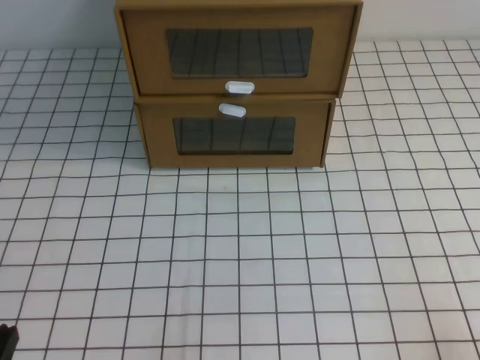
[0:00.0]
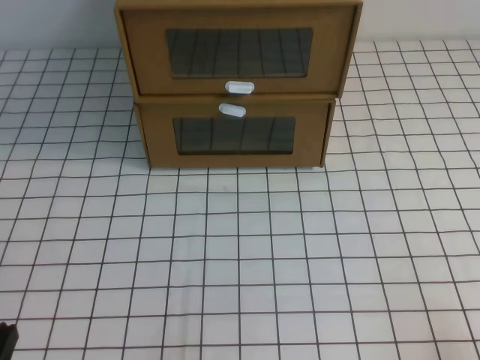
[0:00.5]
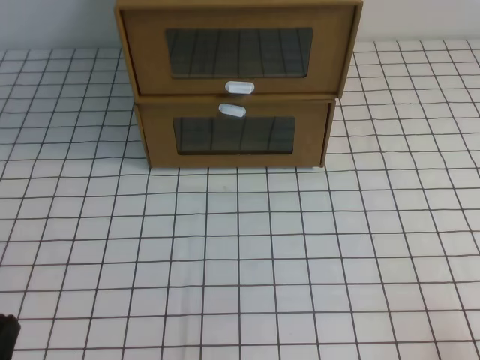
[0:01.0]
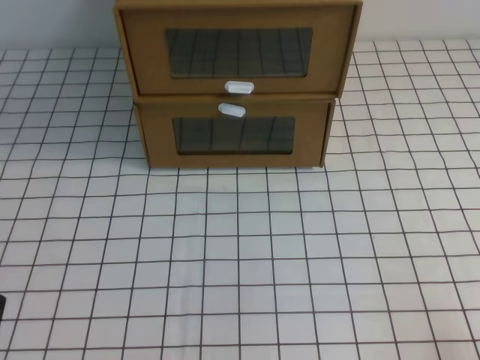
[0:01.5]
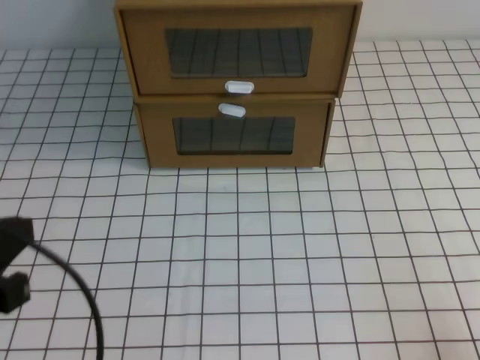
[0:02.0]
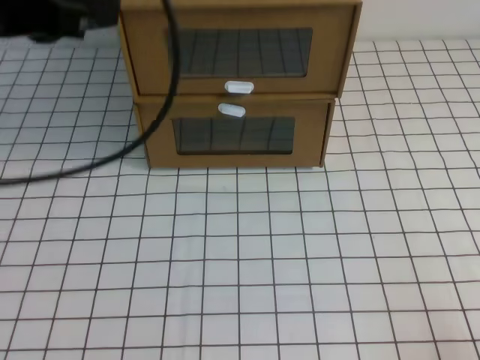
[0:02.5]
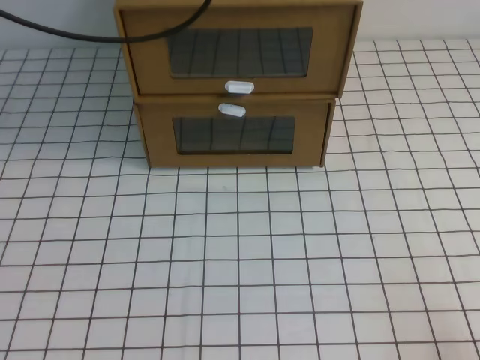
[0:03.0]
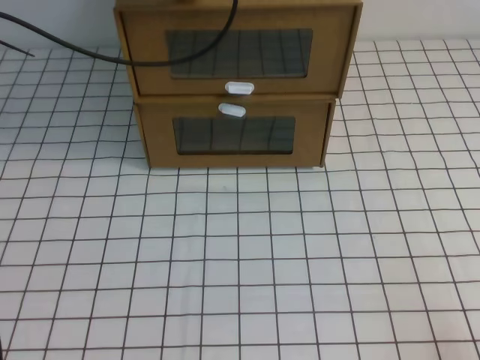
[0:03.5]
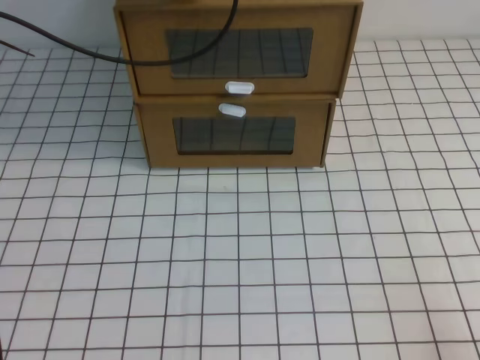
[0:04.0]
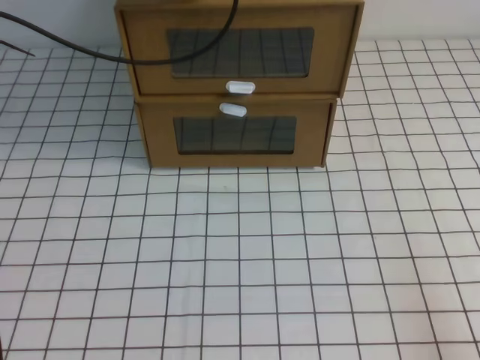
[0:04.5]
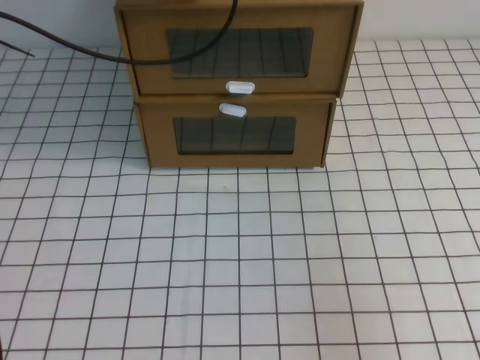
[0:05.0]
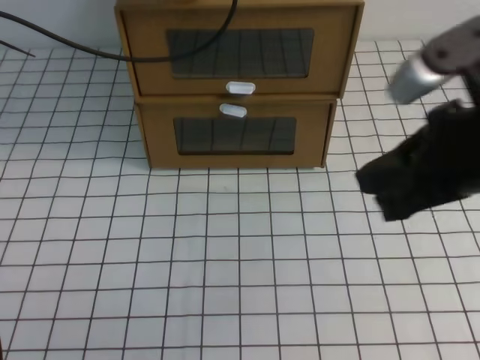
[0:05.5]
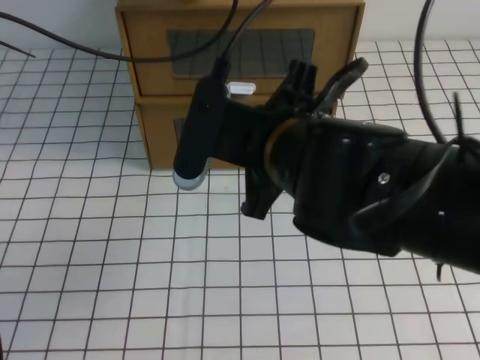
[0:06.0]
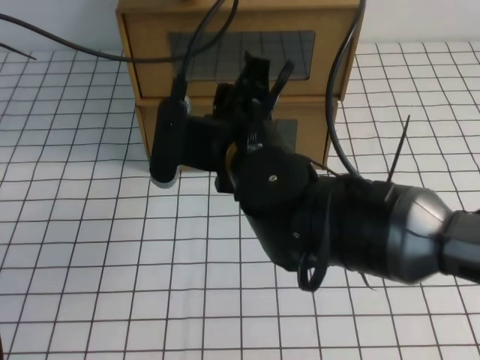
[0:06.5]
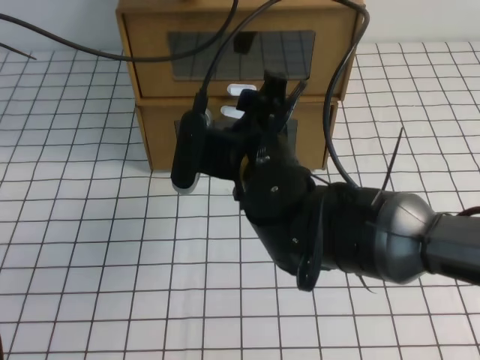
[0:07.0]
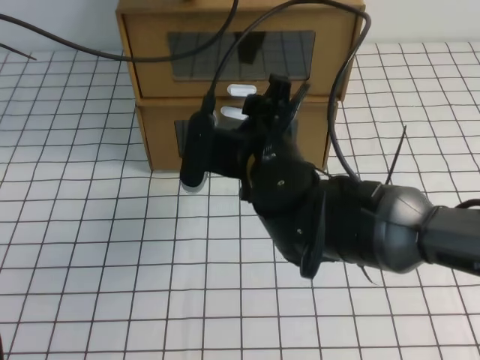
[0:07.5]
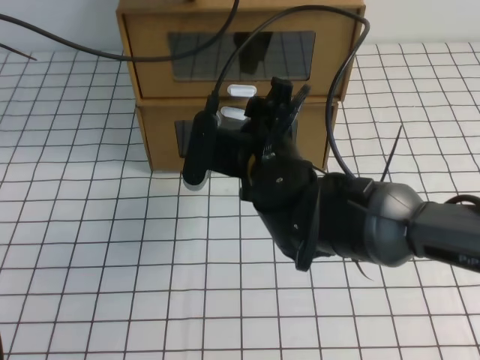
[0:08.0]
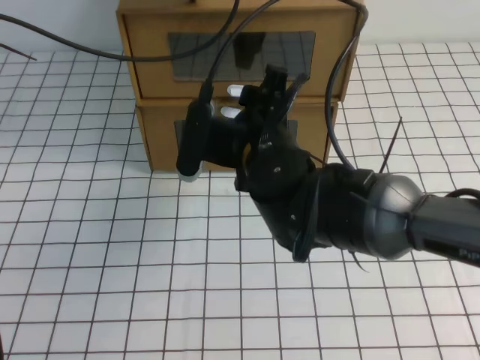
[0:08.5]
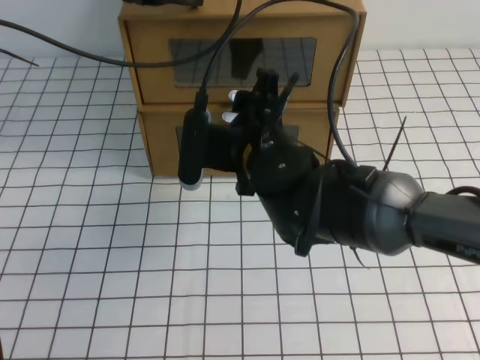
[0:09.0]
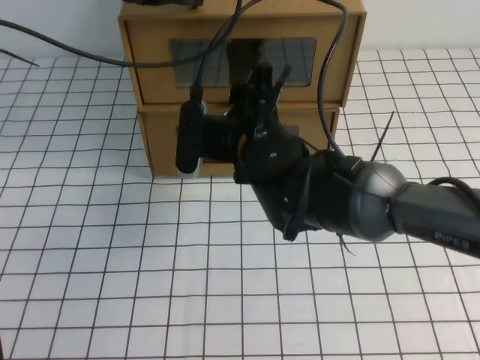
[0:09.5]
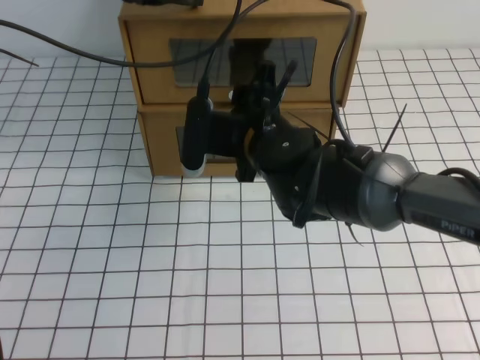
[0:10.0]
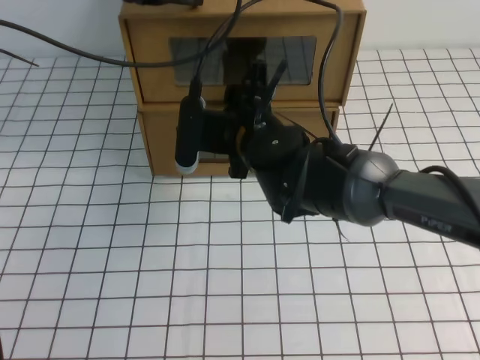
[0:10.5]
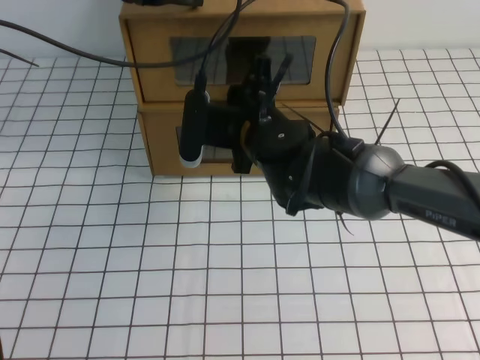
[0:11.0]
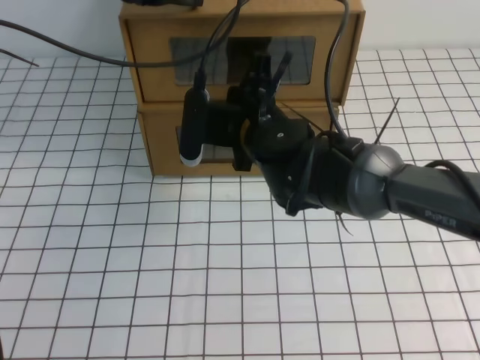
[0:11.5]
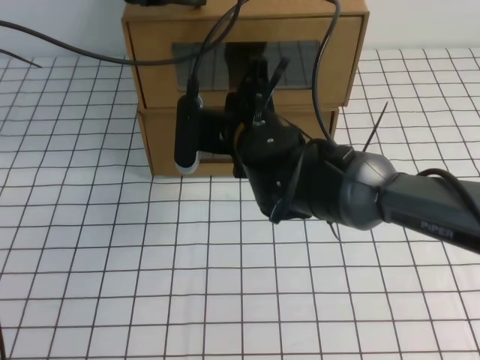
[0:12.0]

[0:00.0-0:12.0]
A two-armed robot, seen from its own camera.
Task of the whole recording: open the shoebox on the white tablecloth.
0:02.0 to 0:04.0: The left gripper travels forward by roughly 35 cm.
0:04.0 to 0:06.0: The right gripper heads to the left, forward and upward, covering some 35 cm.
0:06.0 to 0:08.0: The right gripper heads downward and forward, covering some 10 cm, and opens up.
0:10.0 to 0:12.0: The right gripper closes.

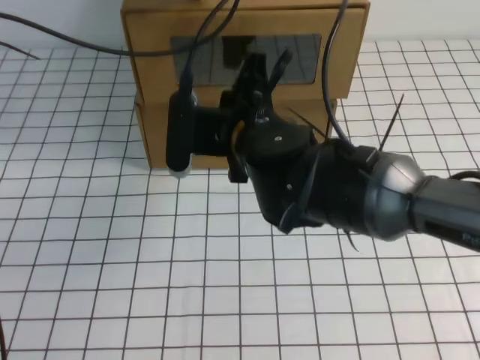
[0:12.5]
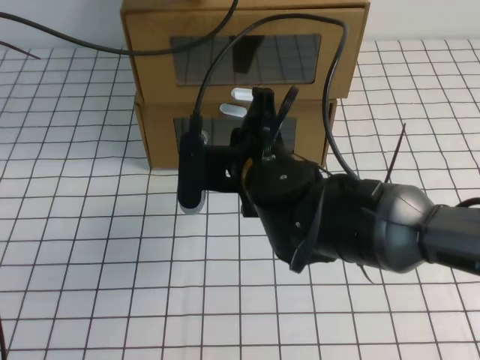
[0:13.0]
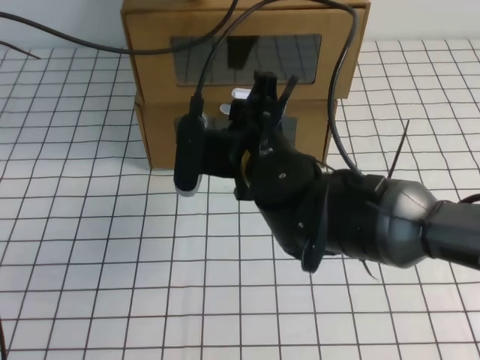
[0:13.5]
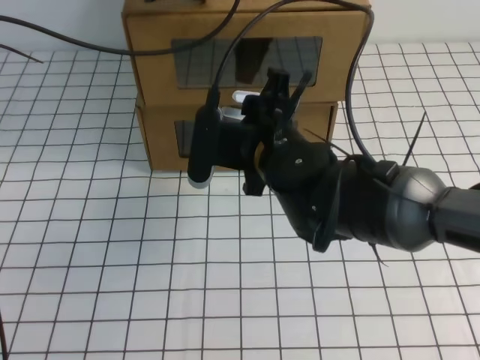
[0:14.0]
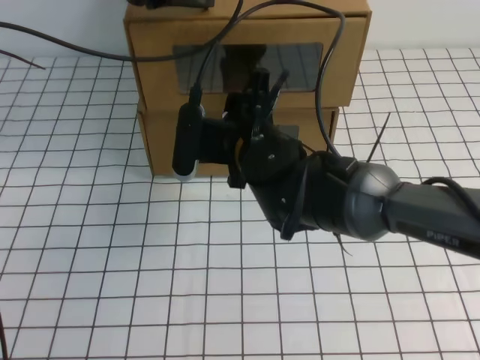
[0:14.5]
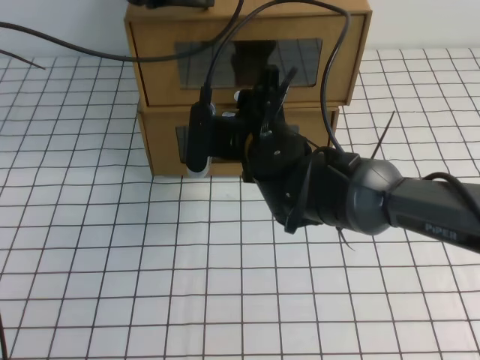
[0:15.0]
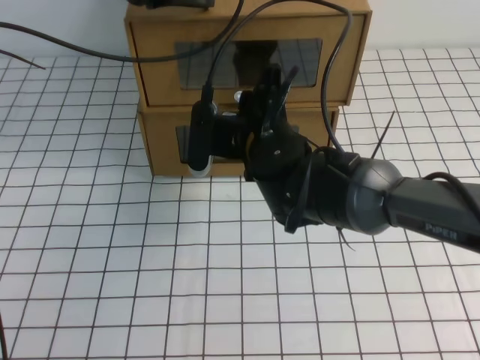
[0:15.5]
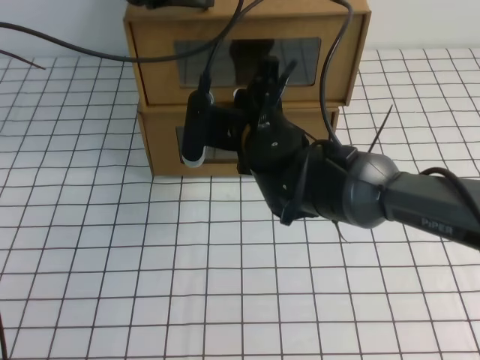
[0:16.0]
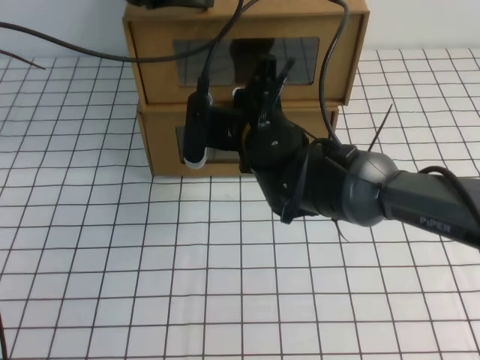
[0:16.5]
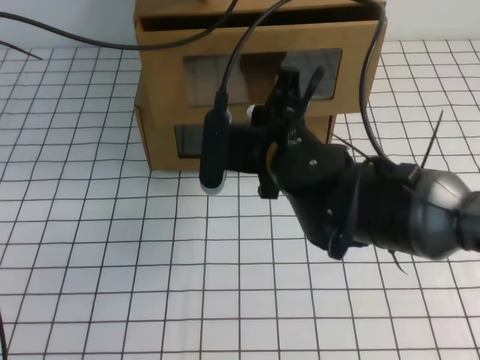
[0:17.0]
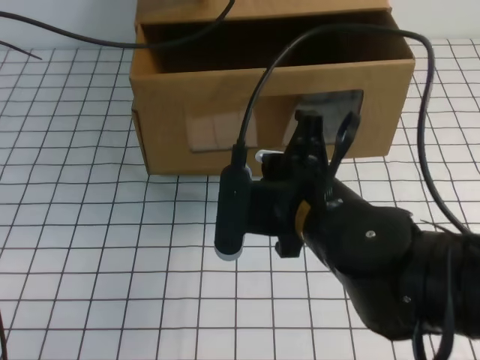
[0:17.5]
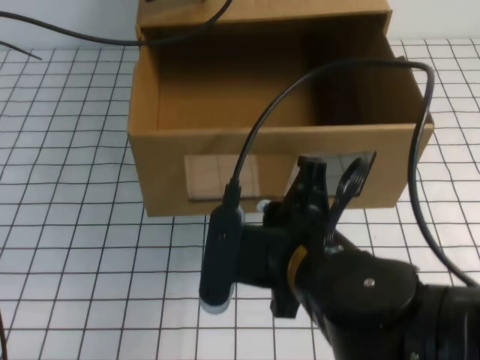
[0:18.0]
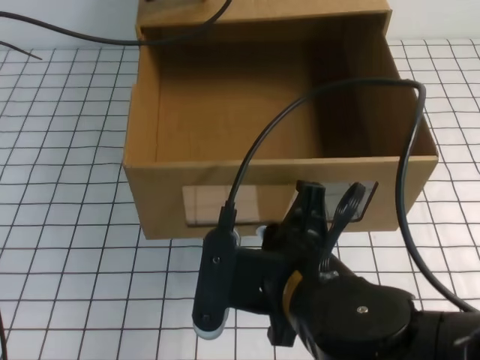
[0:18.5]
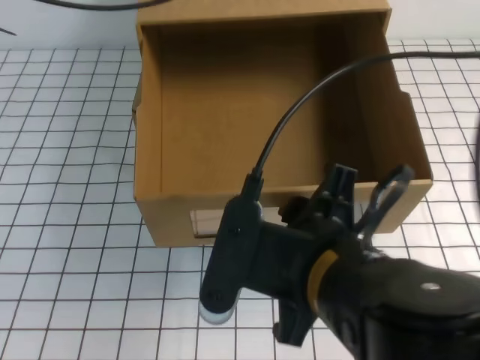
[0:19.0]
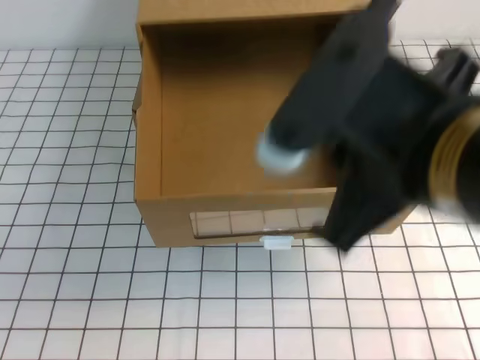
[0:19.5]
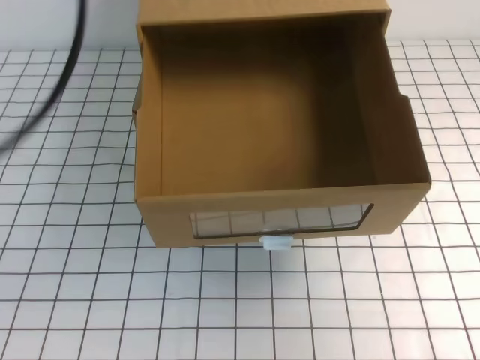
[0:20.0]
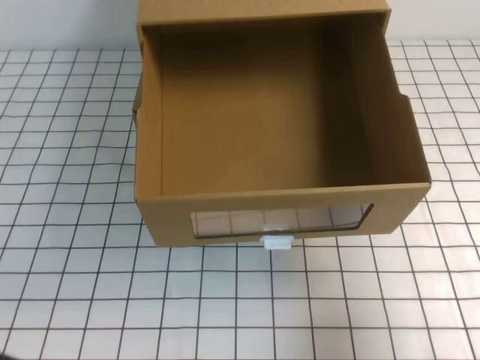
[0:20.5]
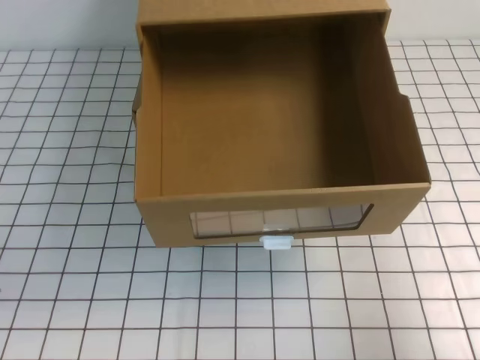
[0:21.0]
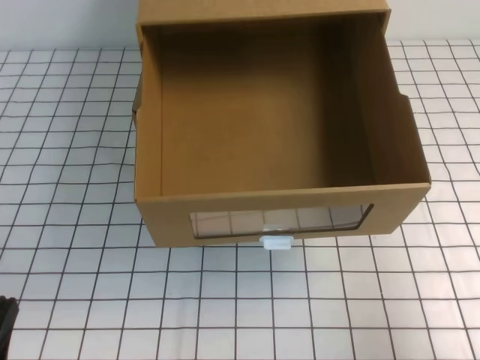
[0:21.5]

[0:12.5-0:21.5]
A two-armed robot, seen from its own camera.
Task of the whole recording: open the shoebox on the white tablecloth.
0:12.5 to 0:14.5: The right gripper opens its fingers.
0:14.5 to 0:17.0: The right gripper closes its fingers.
0:17.0 to 0:19.5: The right gripper heads backward and upward, covering some 25 cm, and opens, then closes again, while the left gripper heads upward and backward, covering about 15 cm.
0:19.5 to 0:21.5: The left gripper goes about 40 cm downward and backward; the right gripper moves to the right and downward, about 25 cm.

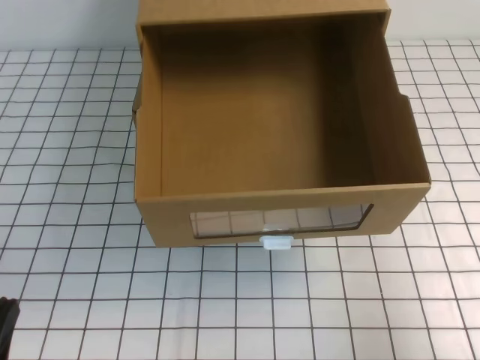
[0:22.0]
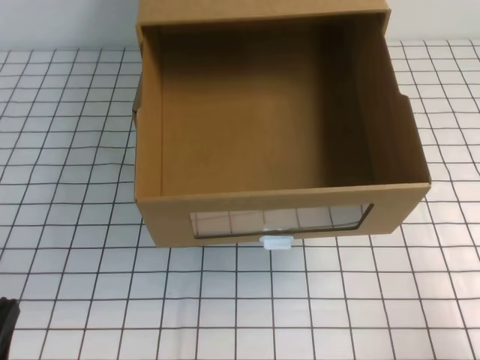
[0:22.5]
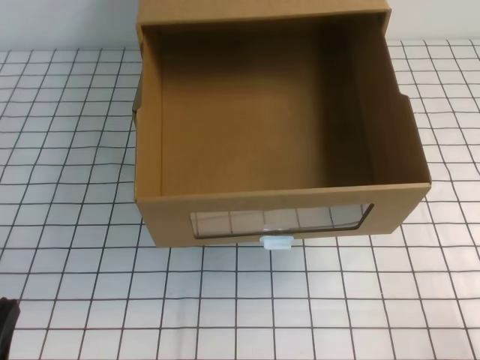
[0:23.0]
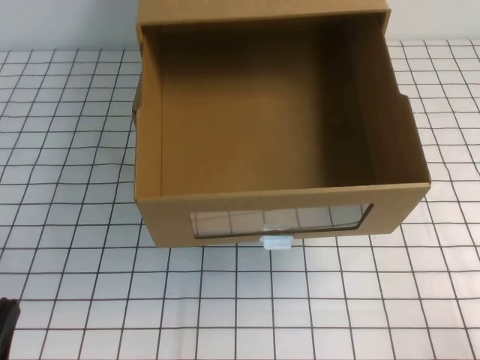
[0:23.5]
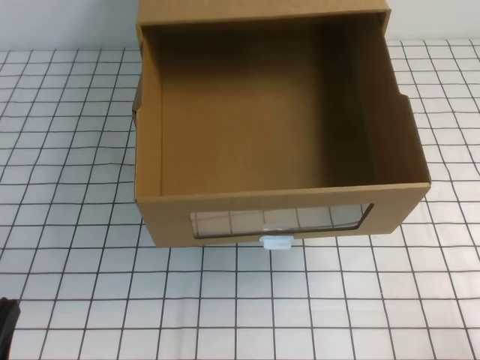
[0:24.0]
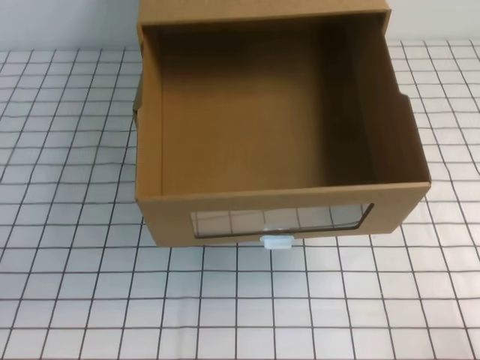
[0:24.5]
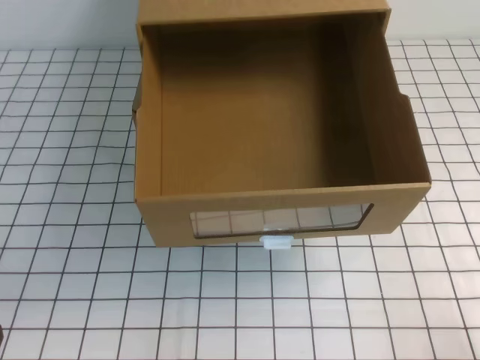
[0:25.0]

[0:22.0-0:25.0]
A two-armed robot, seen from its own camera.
Task of the whole recording: open the shoebox on the white tablecloth.
Step, 0:22.0 to 0:25.0: Open the shoe box.
0:22.0 to 0:23.5: The right gripper is displaced downward and backward by approximately 15 cm.

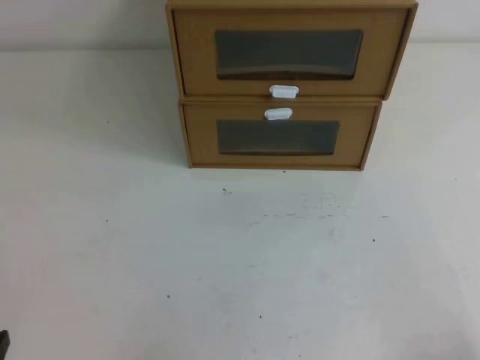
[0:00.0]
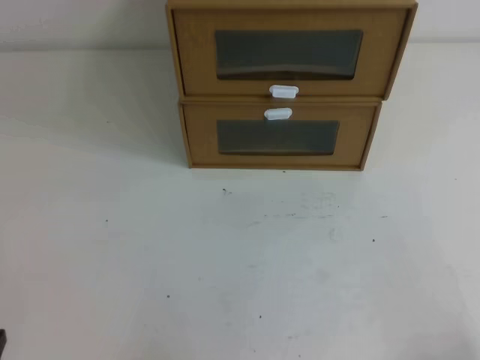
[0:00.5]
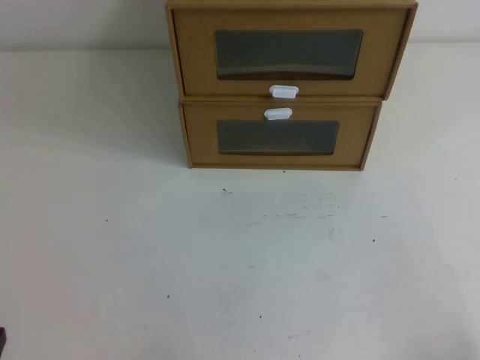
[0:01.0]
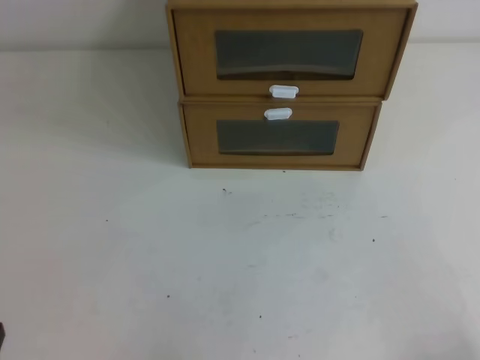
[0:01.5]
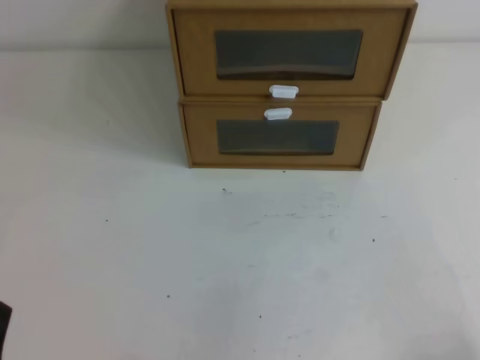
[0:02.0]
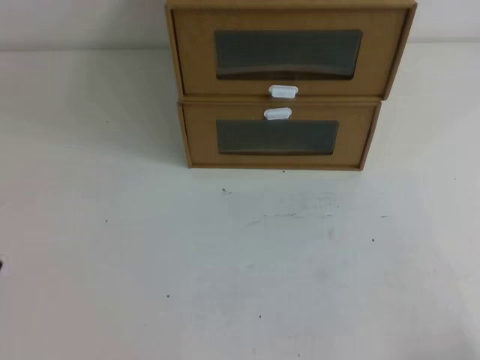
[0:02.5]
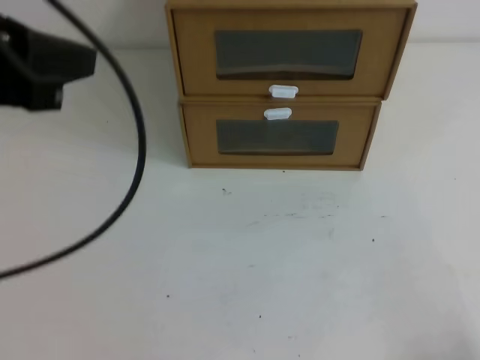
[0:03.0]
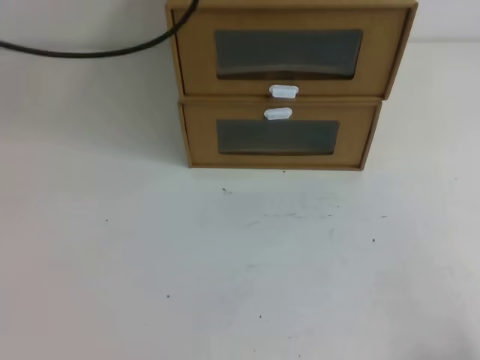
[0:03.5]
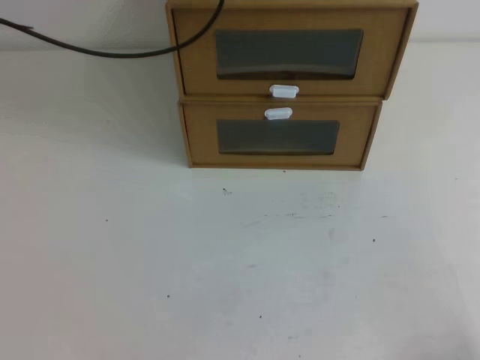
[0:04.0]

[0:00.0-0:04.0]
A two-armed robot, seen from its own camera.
Task of the whole recording: open the shoebox on the table.
0:02.0 to 0:04.0: The left gripper moves forward and upward, some 40 cm.
